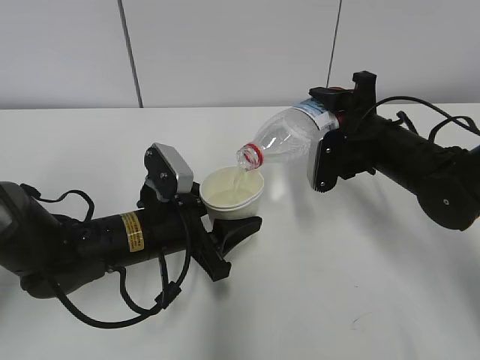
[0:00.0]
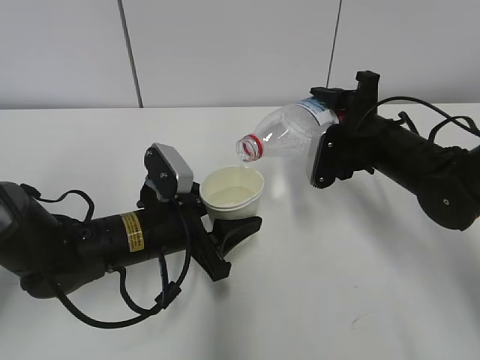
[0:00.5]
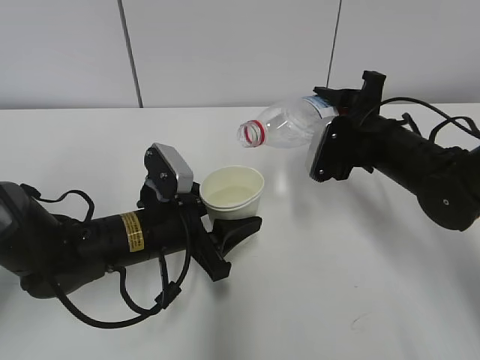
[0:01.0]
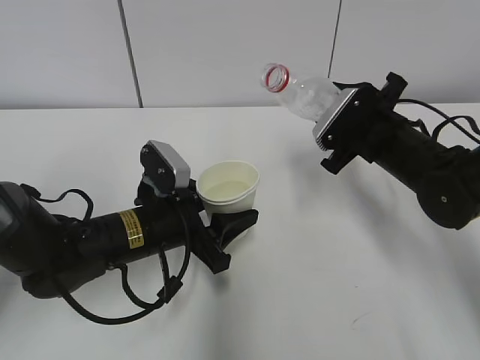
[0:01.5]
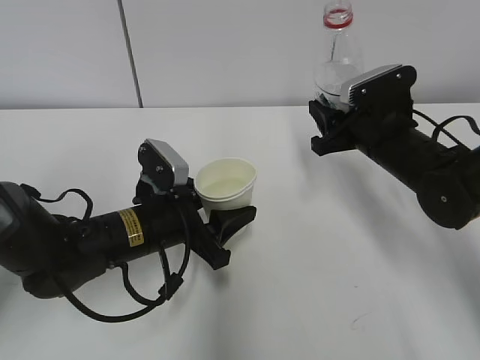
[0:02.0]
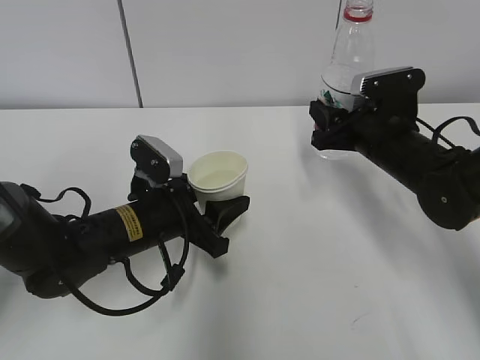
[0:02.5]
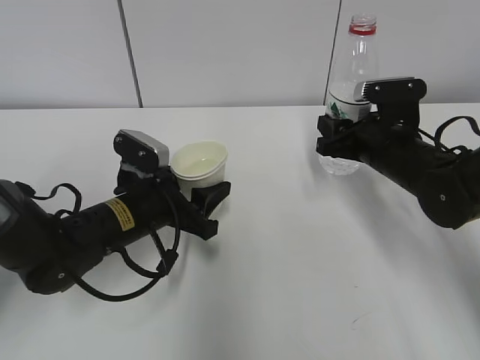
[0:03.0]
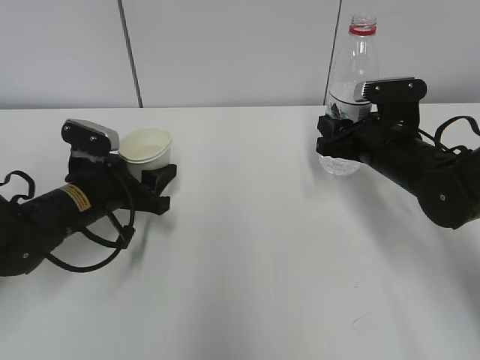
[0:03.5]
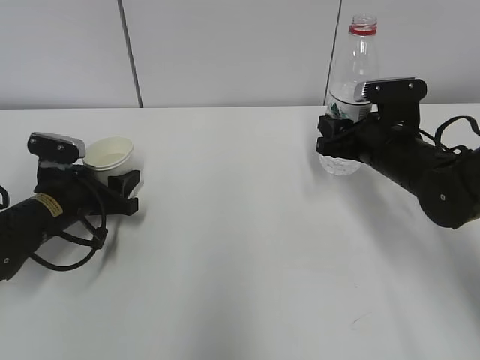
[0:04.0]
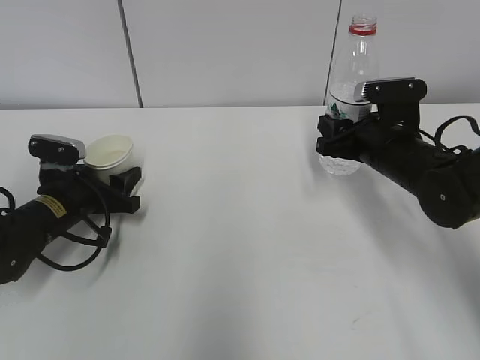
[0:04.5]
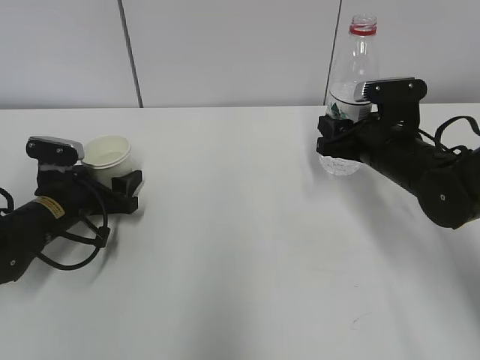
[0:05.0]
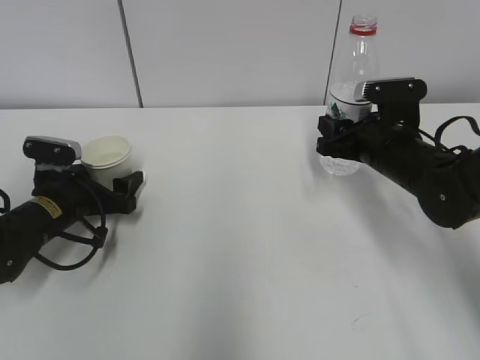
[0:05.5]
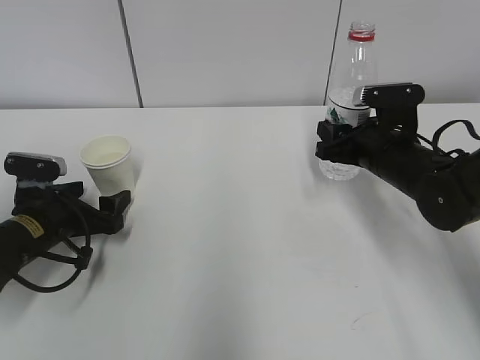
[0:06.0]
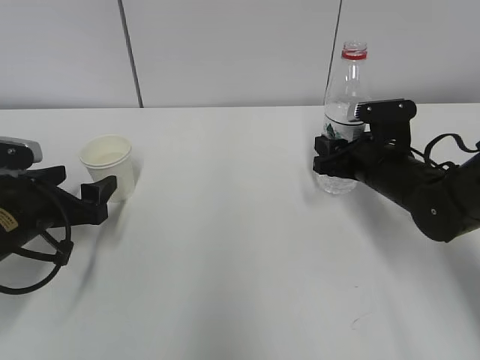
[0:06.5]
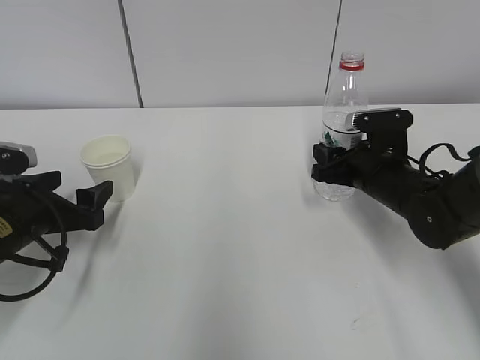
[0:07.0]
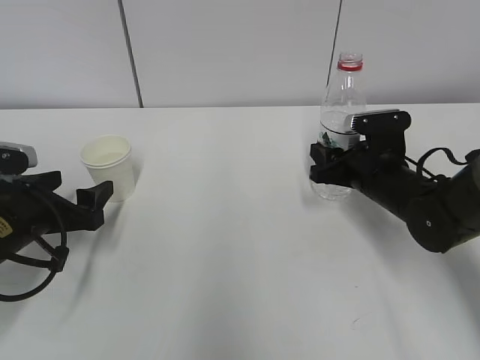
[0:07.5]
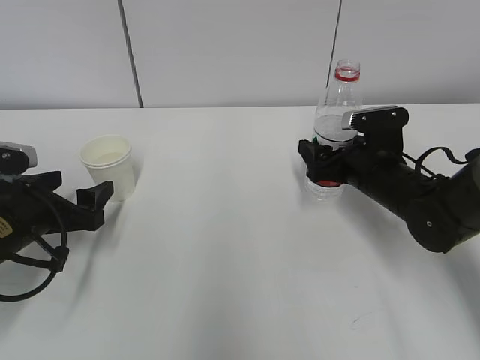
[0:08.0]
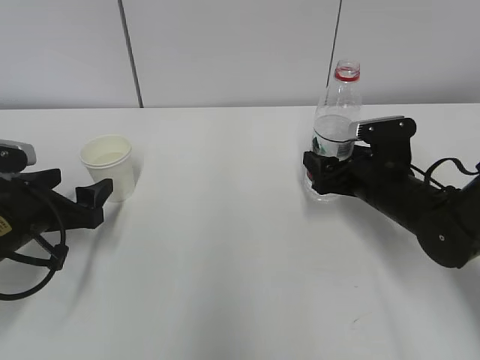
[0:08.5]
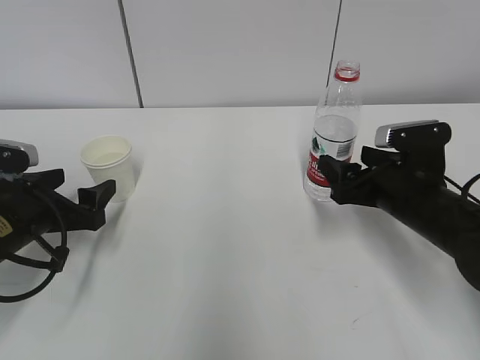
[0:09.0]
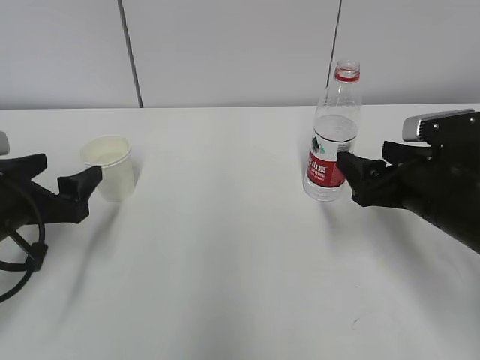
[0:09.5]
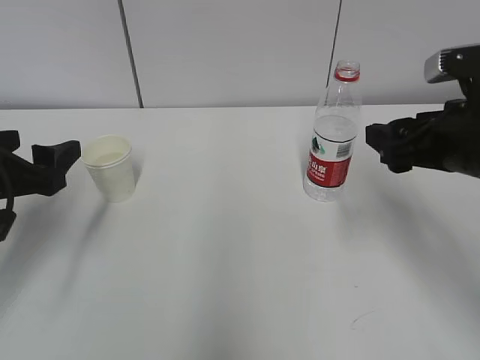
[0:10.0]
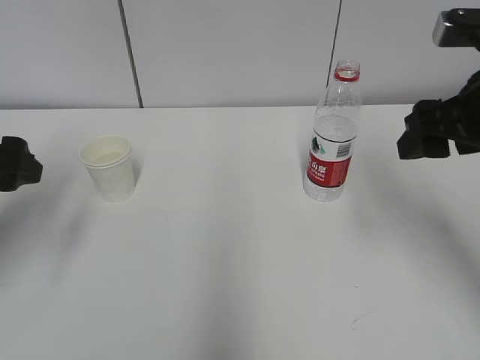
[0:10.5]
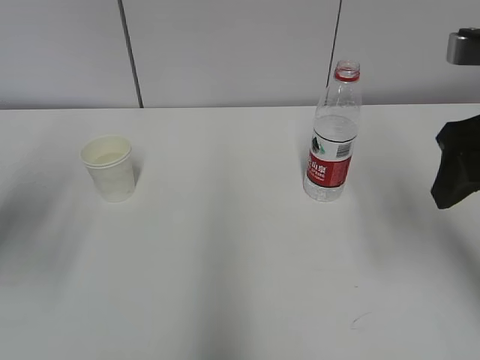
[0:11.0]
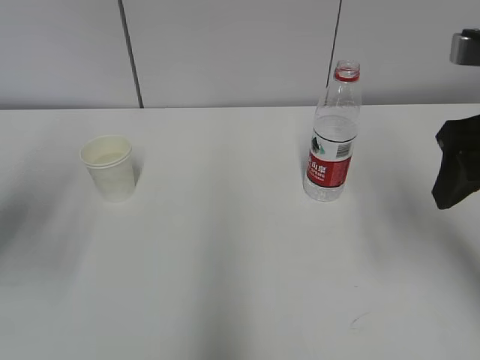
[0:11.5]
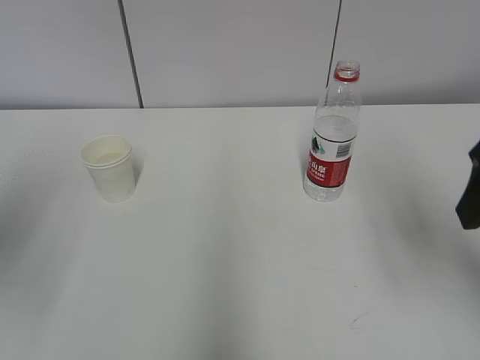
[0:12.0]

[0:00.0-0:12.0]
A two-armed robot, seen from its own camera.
Step, 0:01.5 to 0:03.5: Place the water bottle with the right hand.
0:02.0 to 0:04.0: The left gripper travels to the left and forward by approximately 15 cm.
0:04.0 to 0:06.0: The left gripper opens up.
0:06.0 to 0:08.0: The right gripper opens up, while the left gripper moves approximately 5 cm.
0:08.0 to 0:10.0: The right gripper shifts about 15 cm upward and backward; the left gripper is displaced upward by some 10 cm.
0:10.0 to 0:12.0: Both grippers travel together upward and backward, about 15 cm. The left gripper closes its fingers.
